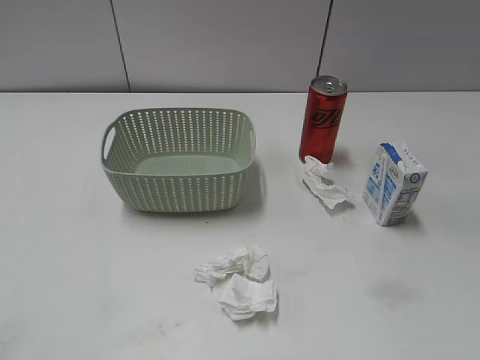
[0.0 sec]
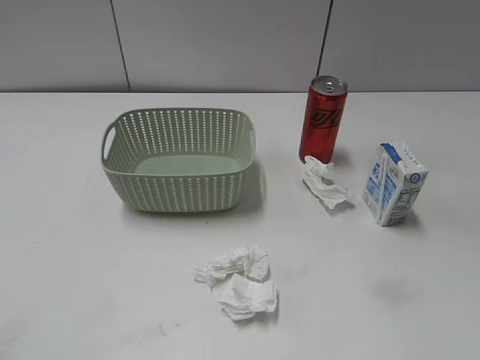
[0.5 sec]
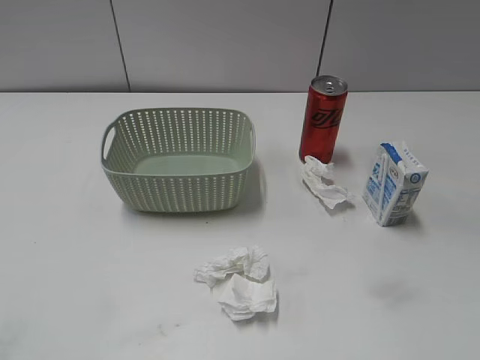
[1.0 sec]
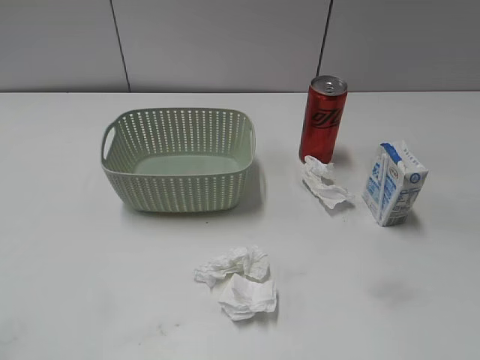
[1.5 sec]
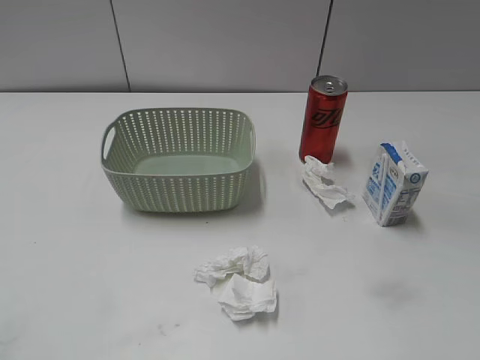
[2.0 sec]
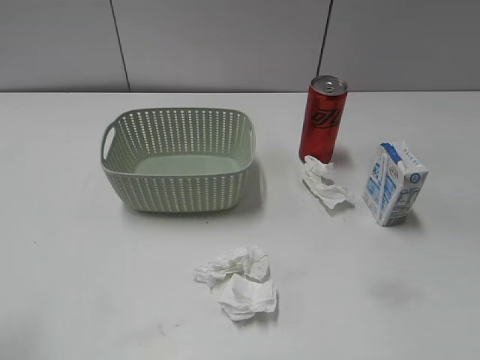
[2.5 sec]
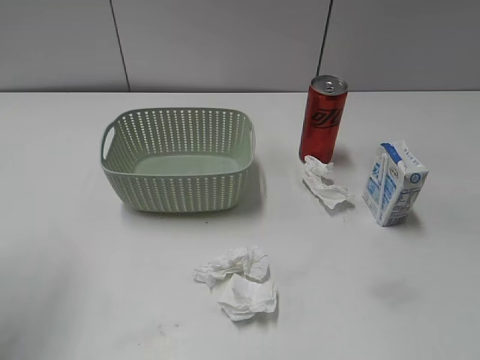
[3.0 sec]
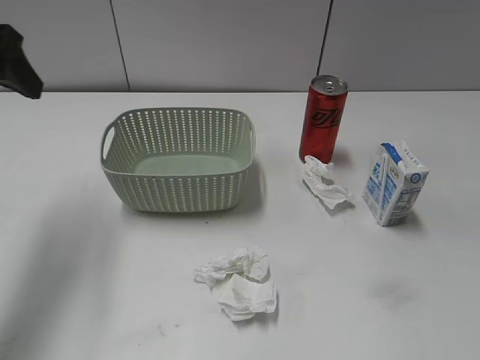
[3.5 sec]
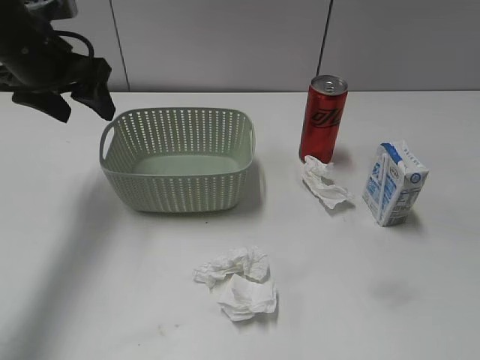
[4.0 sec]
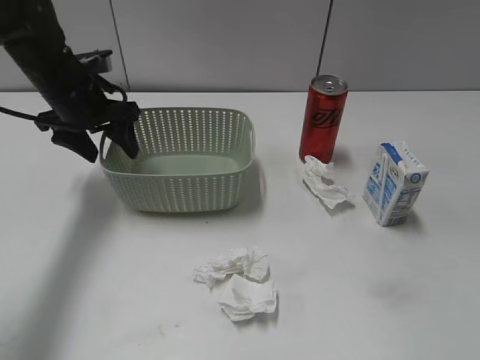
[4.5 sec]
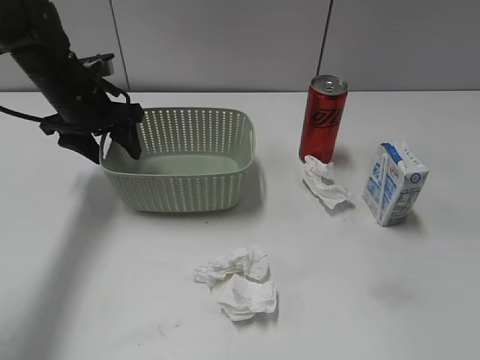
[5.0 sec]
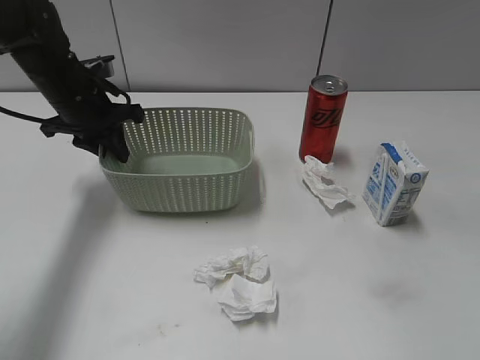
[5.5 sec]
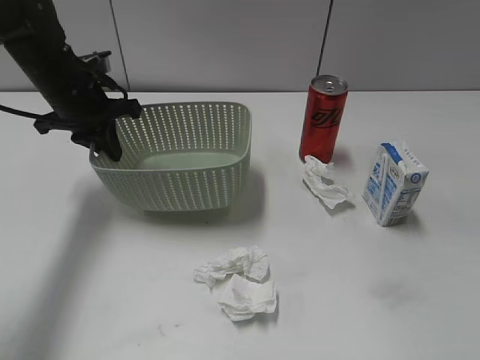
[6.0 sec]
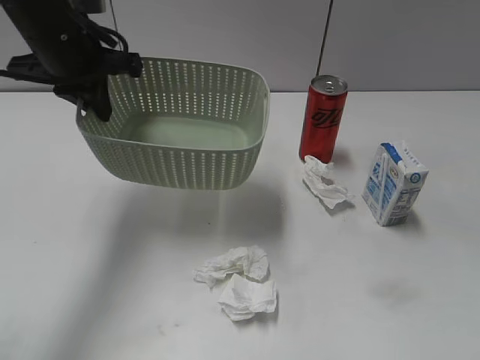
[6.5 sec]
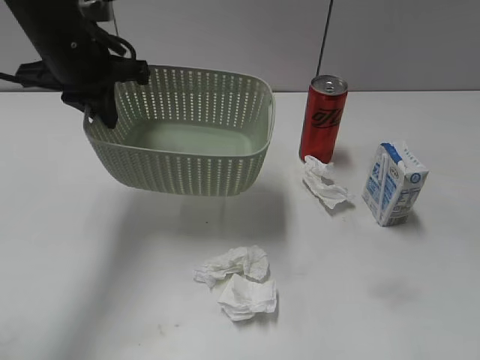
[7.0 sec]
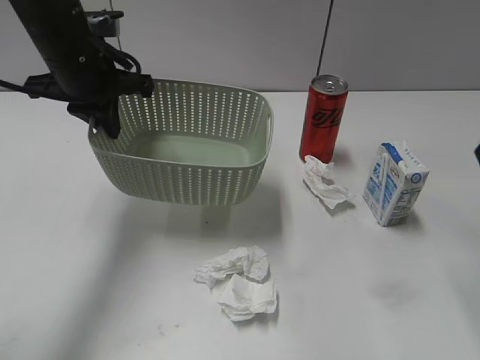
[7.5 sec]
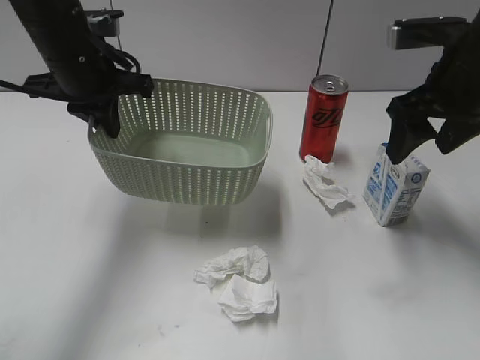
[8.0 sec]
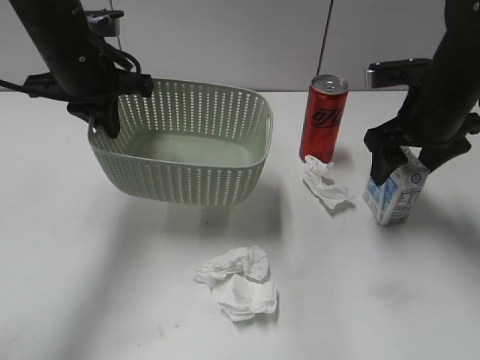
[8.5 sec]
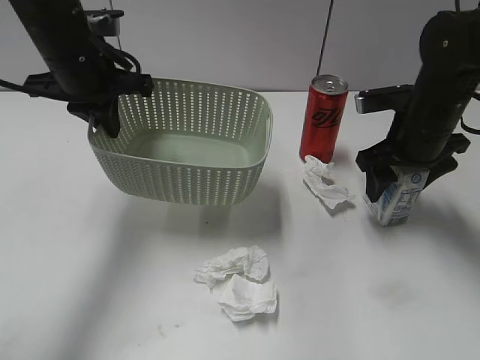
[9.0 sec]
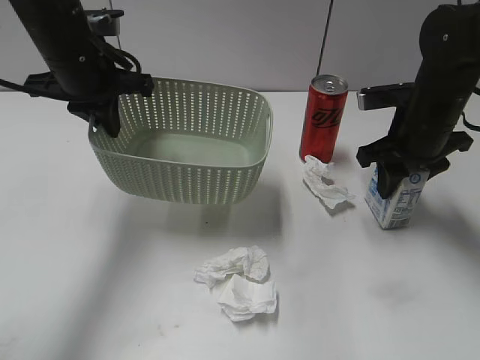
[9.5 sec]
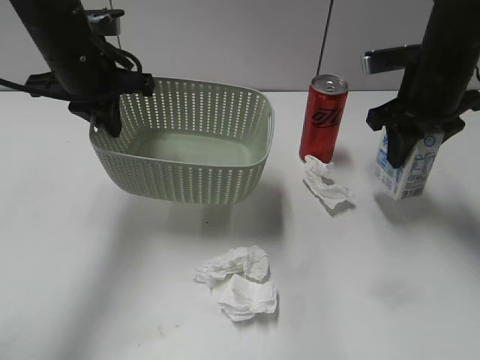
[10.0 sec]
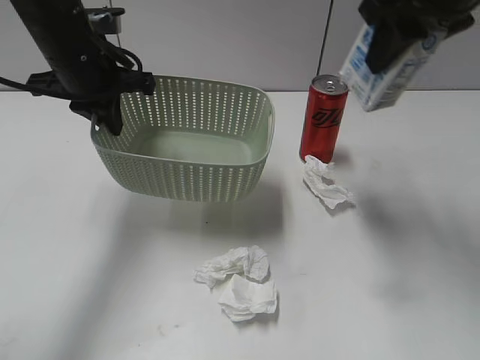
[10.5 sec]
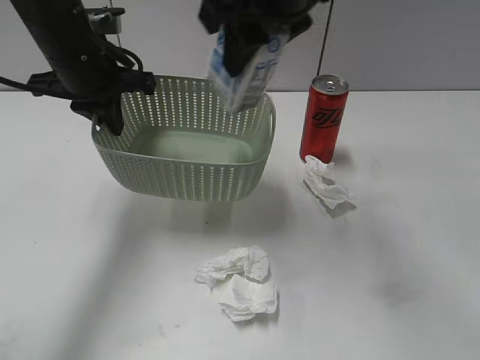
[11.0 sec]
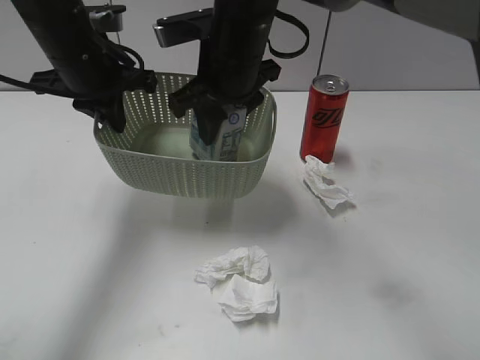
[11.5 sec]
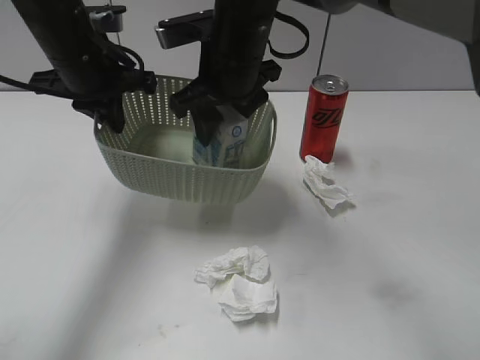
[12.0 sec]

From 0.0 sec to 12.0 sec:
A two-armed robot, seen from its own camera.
Step, from 3.5 sec to 5.5 sec: Grasp the basket with left gripper.
Step, from 6.0 sec to 7.5 sec: Lift the basket with left gripper.
Step, from 8.0 sec to 9.0 sec: Grasp the milk with right gripper.
From 2.0 sec to 4.0 sec: The left gripper goes some 35 cm forward.
From 4.0 sec to 6.0 sec: The left gripper moves downward, roughly 5 cm, and closes its fingers.
From 6.0 sec to 8.0 sec: The right gripper is displaced forward by roughly 35 cm. Meanwhile the left gripper moves upward, some 5 cm.
From 8.0 sec to 10.0 sec: The right gripper travels forward by roughly 5 cm, goes downward and returns, about 10 cm each way, and closes its fingers.
From 10.0 sec to 12.0 sec: The right gripper shifts about 20 cm to the left, and opens up.

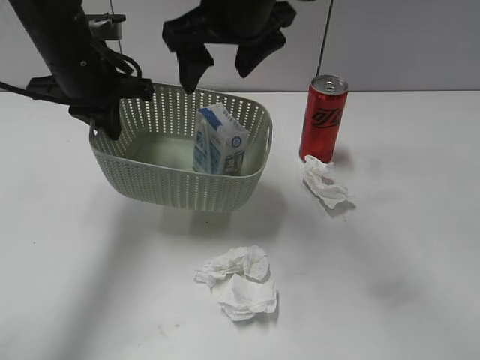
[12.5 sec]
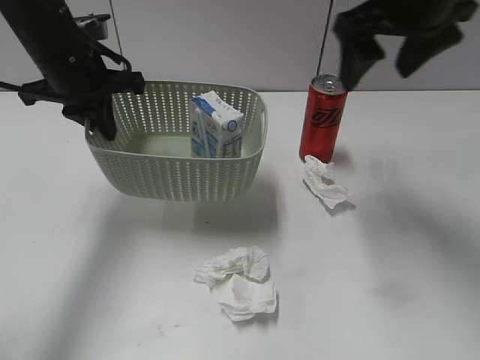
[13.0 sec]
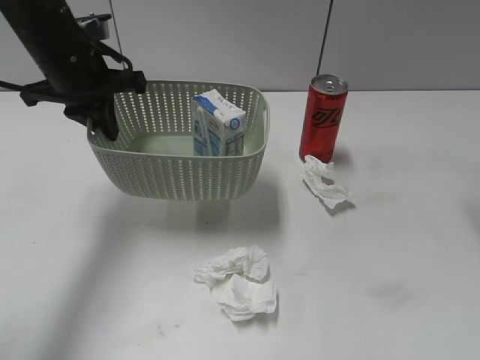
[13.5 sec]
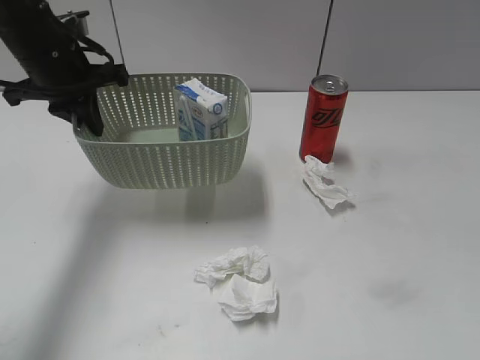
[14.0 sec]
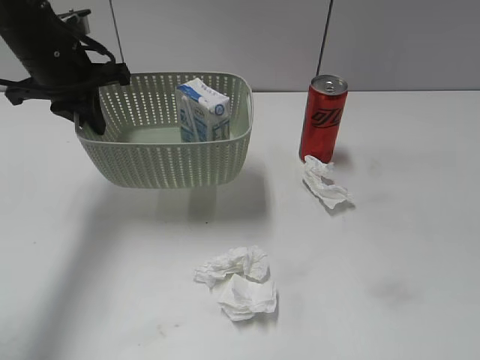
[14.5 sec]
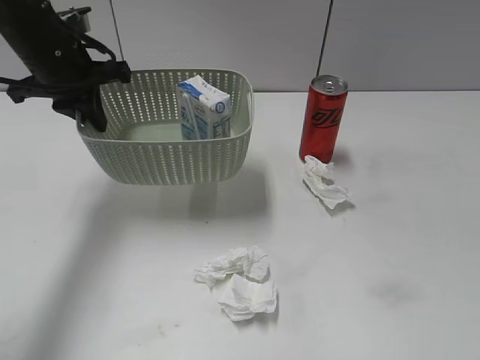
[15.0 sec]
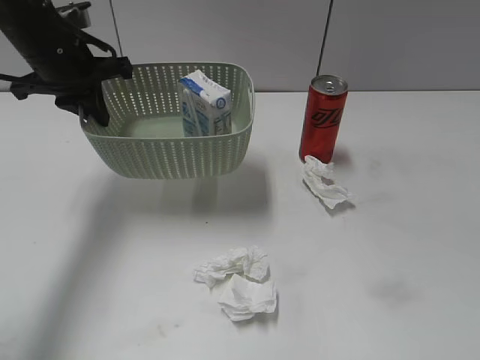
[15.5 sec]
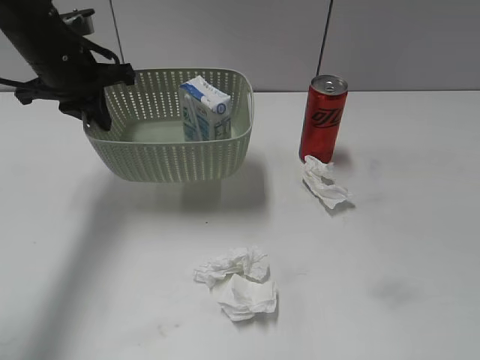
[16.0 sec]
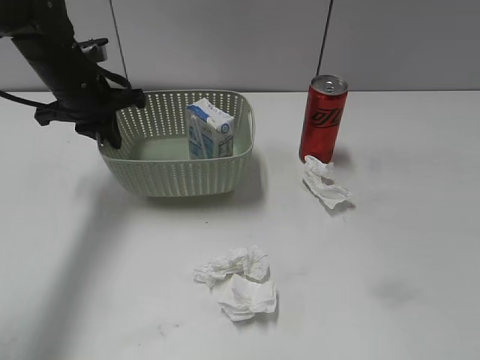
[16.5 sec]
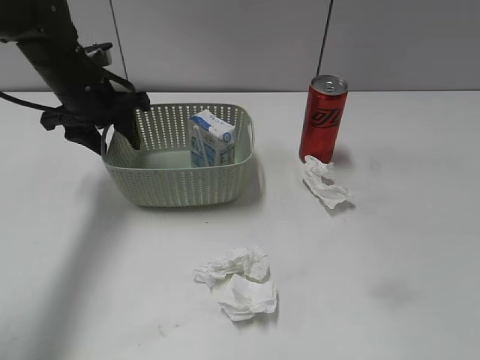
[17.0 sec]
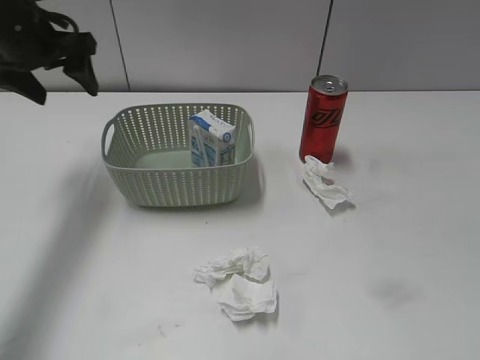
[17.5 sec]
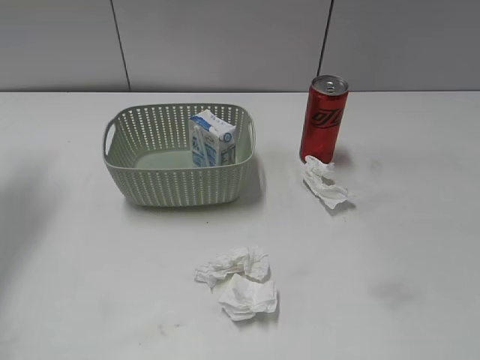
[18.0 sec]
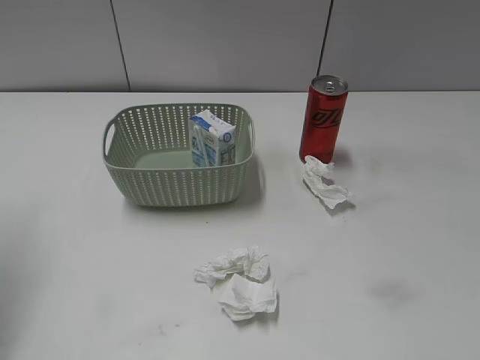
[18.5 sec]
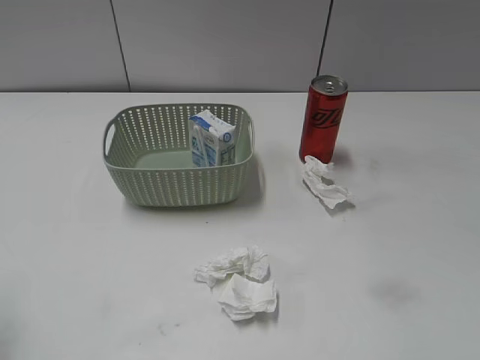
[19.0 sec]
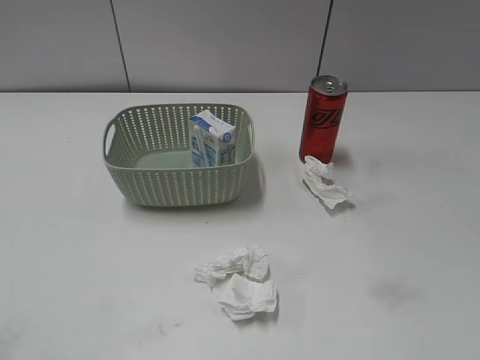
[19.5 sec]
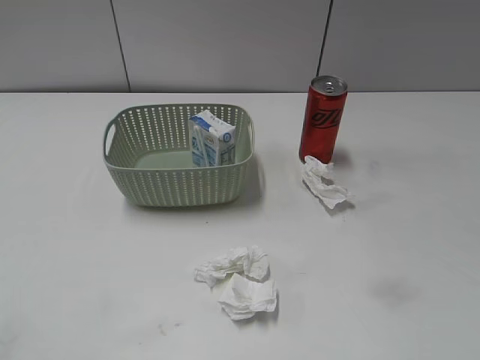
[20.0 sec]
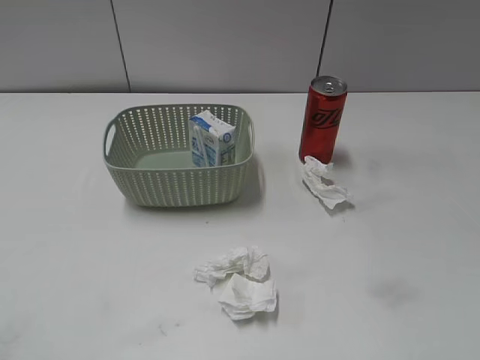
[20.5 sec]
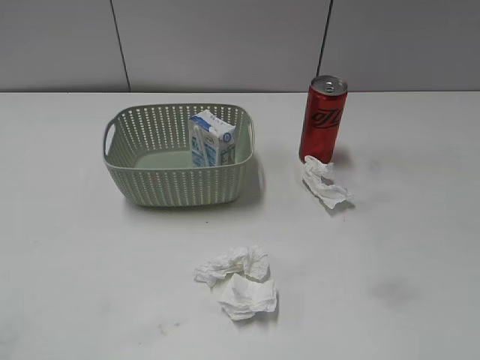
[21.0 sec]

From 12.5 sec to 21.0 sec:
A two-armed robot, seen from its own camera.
Step, from 13.0 sec to 17.0 sec: Place the basket on the table with left gripper.
From 12.5 sec to 14.5 sec: The right gripper goes some 40 cm to the right and backward.
From 14.5 sec to 16.5 sec: The left gripper is displaced downward by about 5 cm. The right gripper moves backward, some 5 cm.
From 16.5 sec to 19.0 sec: The left gripper goes roughly 35 cm backward, to the left and upward, and opens.

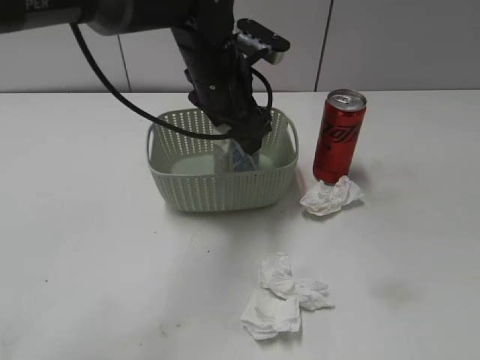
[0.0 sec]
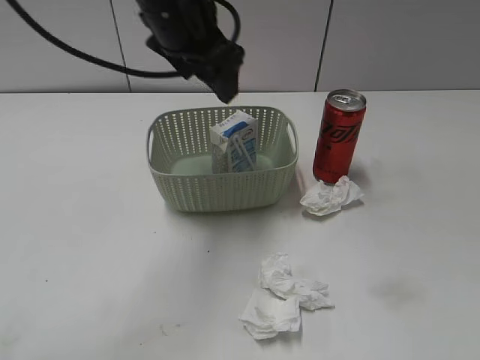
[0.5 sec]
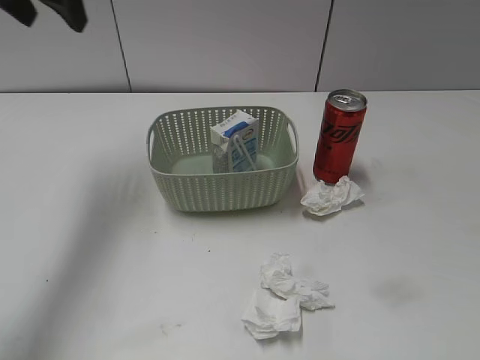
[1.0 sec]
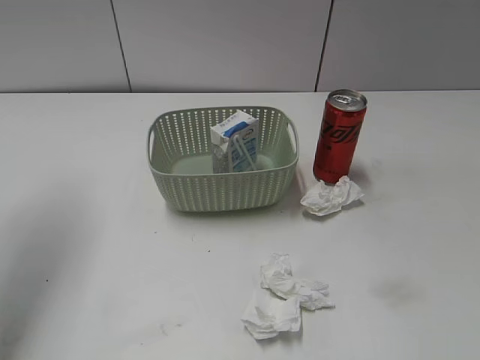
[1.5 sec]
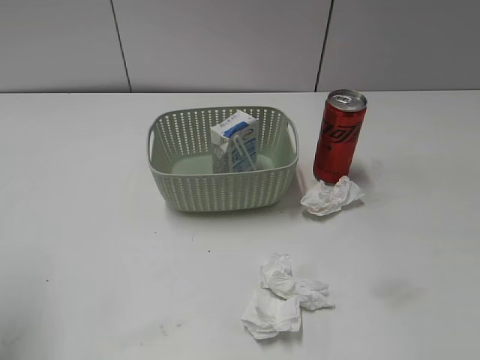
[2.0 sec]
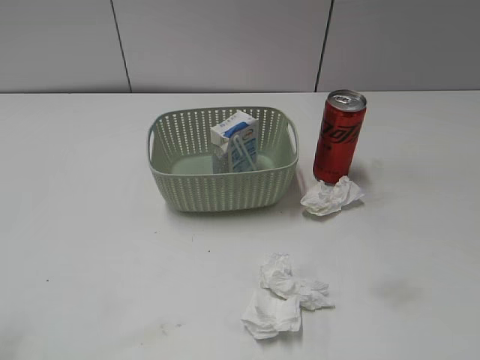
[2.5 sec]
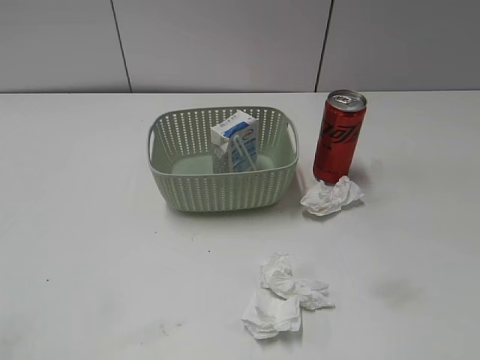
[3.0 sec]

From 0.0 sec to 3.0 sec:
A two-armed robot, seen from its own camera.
From 0.0 sec to 1.5 sec: The left gripper goes some 30 cm to the left and upward.
From 1.5 sec to 3.0 sec: The left gripper is displaced backward by roughly 25 cm.
